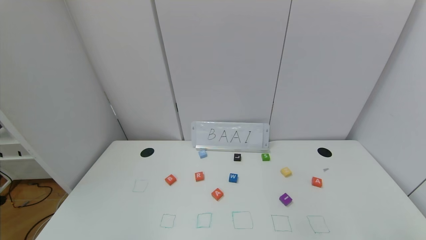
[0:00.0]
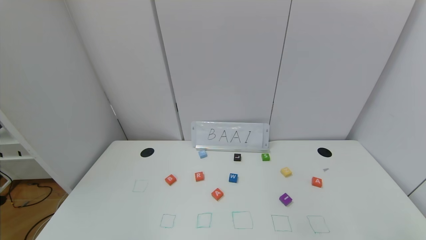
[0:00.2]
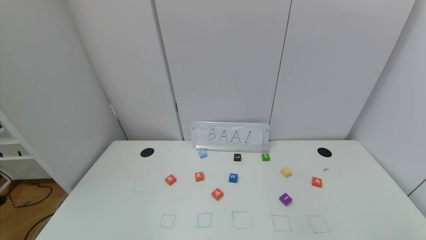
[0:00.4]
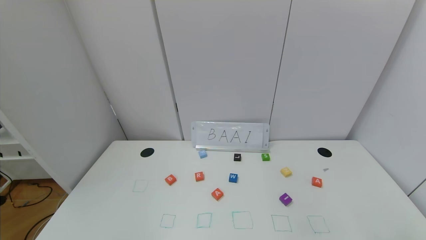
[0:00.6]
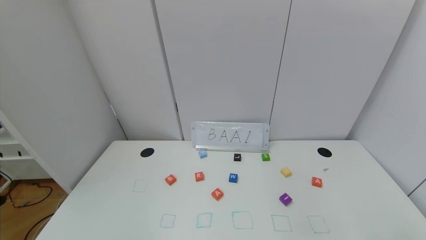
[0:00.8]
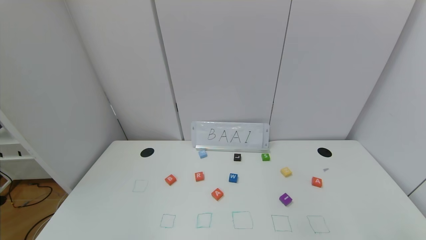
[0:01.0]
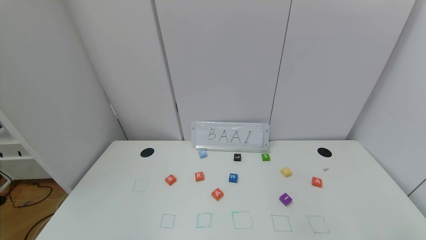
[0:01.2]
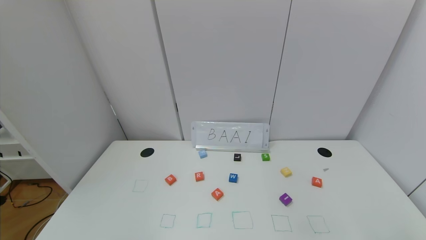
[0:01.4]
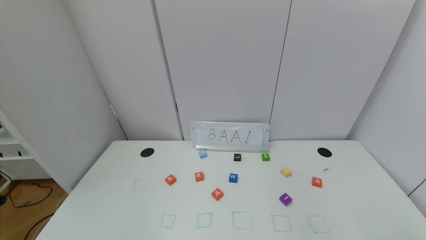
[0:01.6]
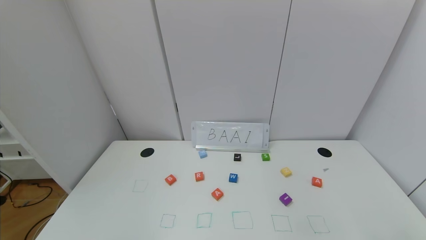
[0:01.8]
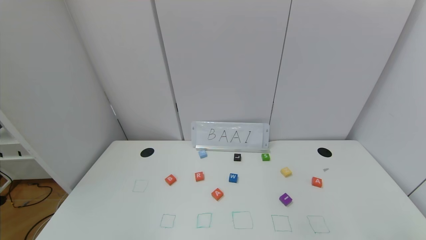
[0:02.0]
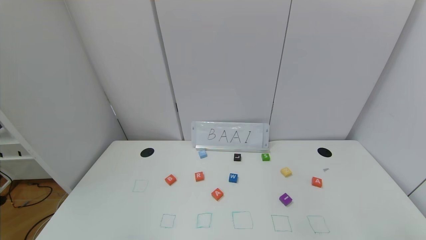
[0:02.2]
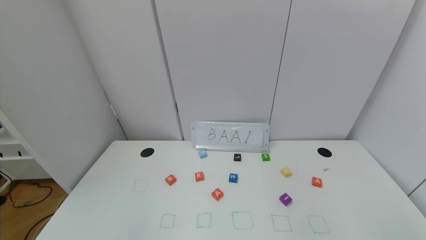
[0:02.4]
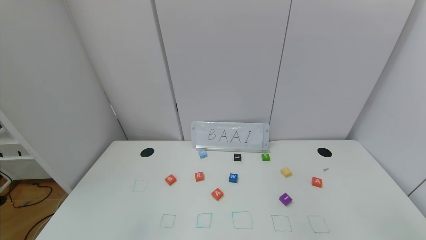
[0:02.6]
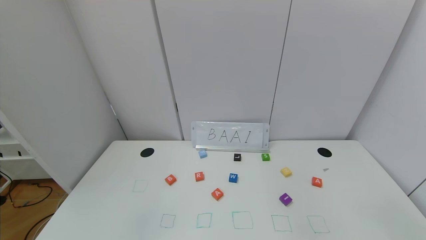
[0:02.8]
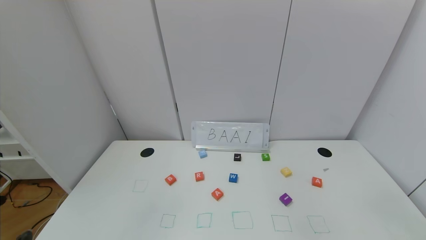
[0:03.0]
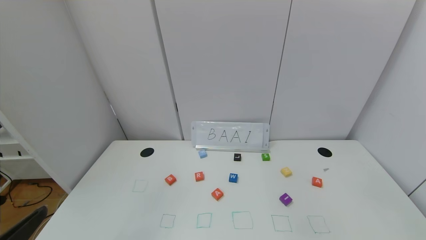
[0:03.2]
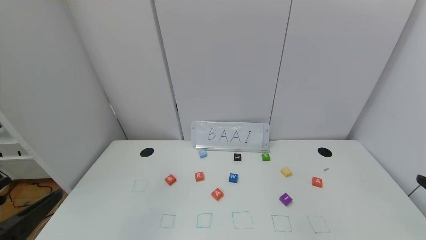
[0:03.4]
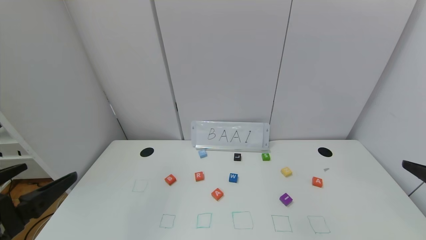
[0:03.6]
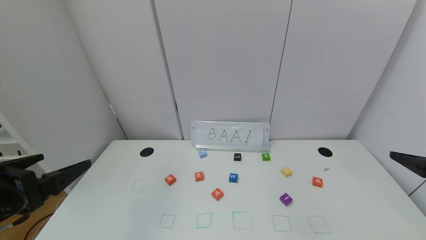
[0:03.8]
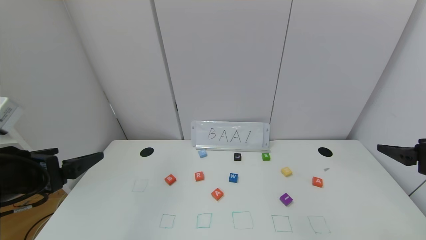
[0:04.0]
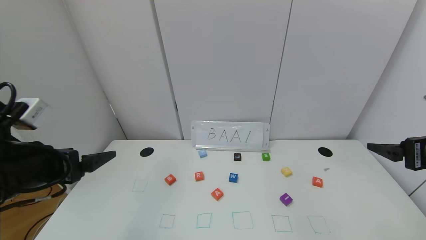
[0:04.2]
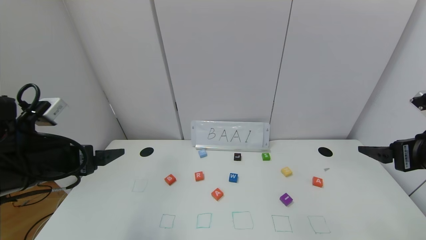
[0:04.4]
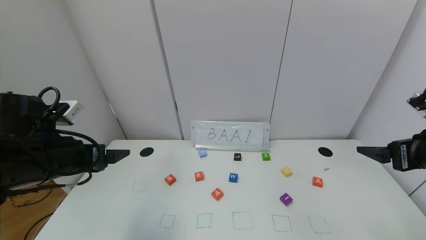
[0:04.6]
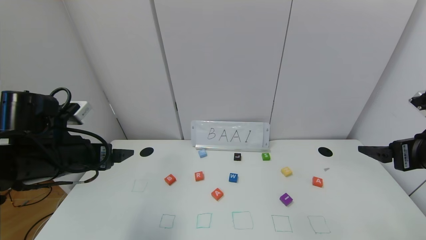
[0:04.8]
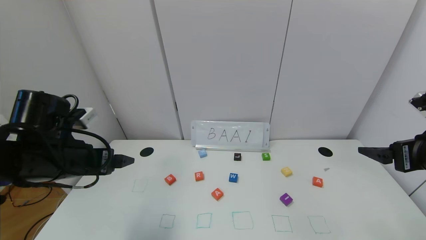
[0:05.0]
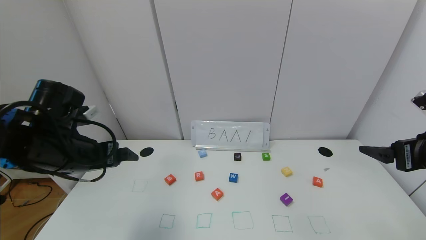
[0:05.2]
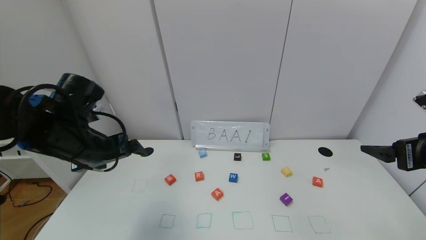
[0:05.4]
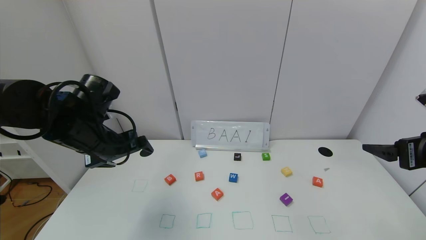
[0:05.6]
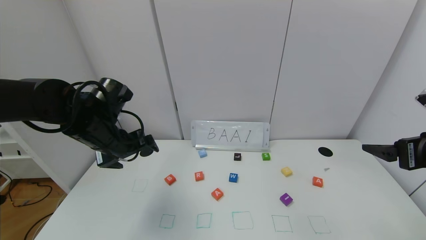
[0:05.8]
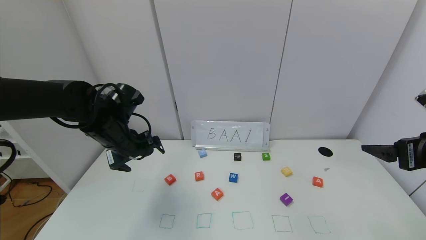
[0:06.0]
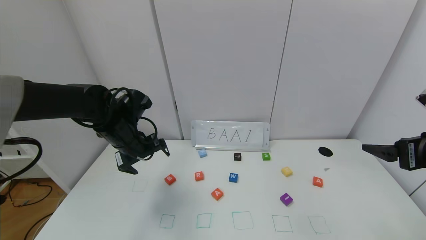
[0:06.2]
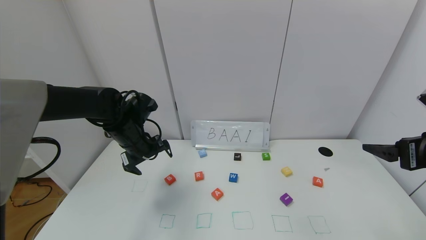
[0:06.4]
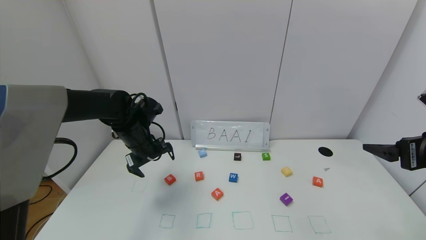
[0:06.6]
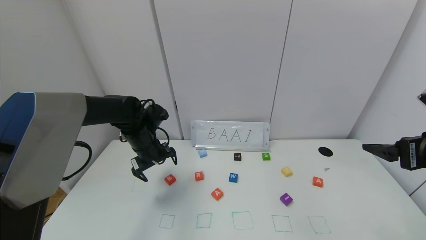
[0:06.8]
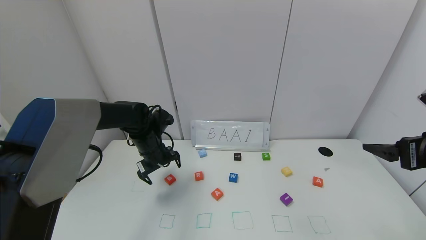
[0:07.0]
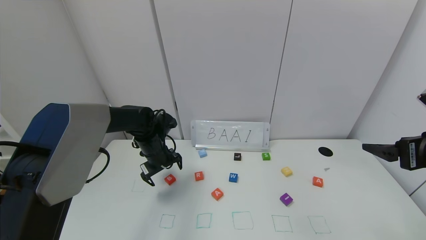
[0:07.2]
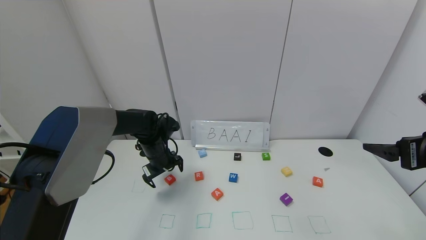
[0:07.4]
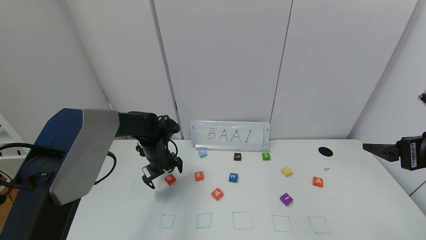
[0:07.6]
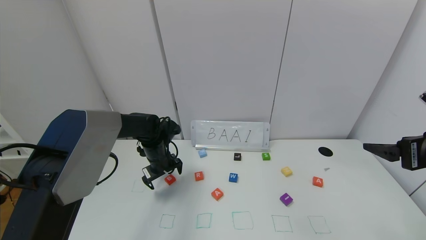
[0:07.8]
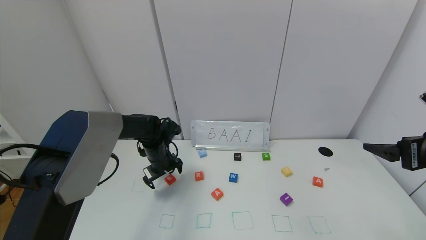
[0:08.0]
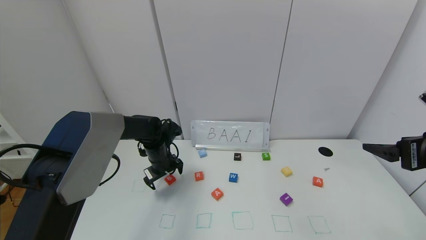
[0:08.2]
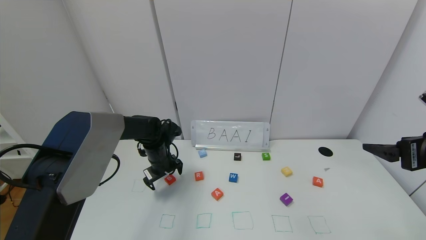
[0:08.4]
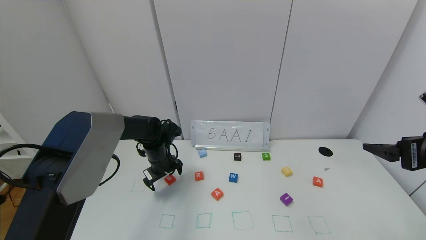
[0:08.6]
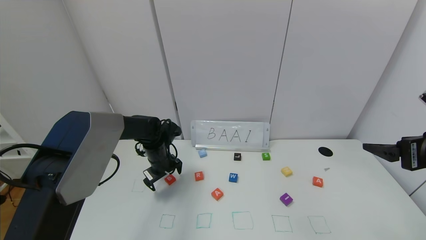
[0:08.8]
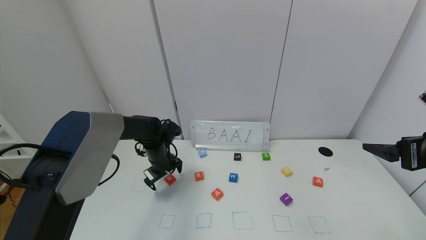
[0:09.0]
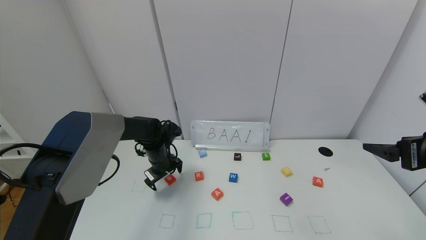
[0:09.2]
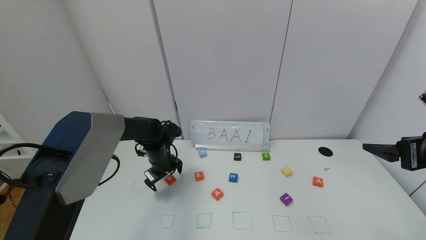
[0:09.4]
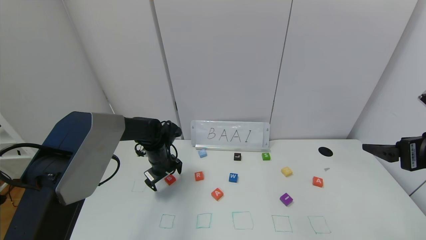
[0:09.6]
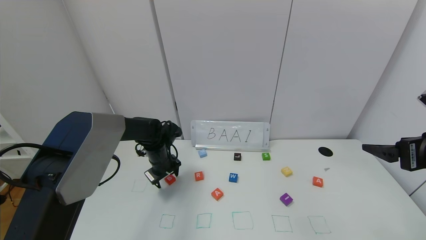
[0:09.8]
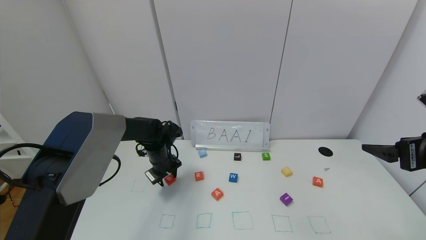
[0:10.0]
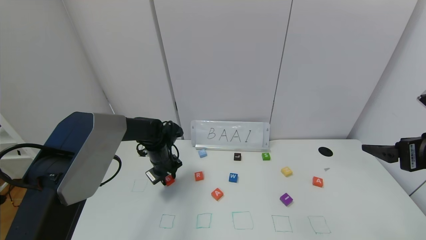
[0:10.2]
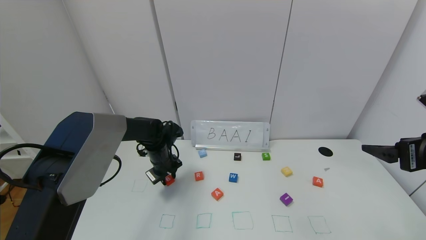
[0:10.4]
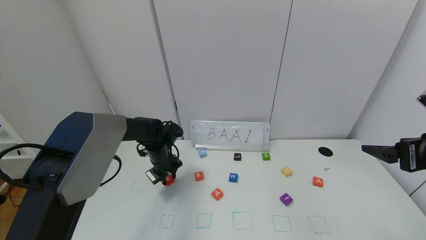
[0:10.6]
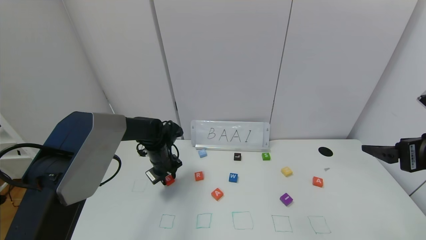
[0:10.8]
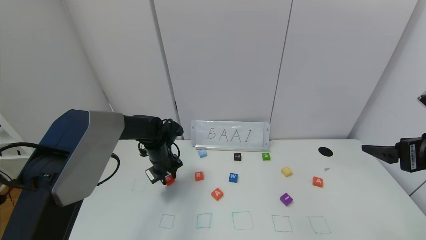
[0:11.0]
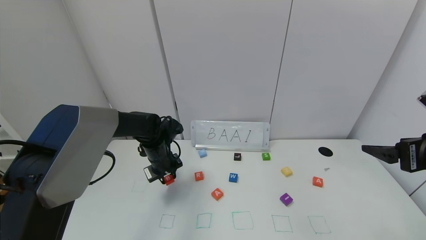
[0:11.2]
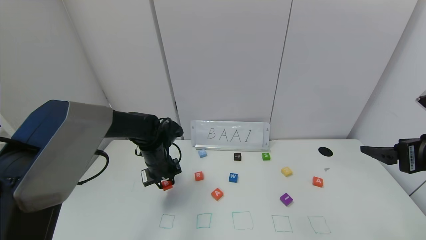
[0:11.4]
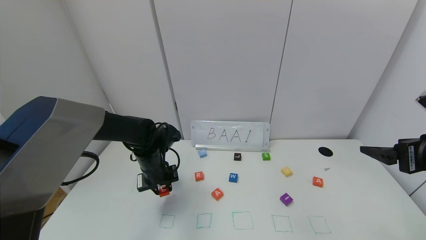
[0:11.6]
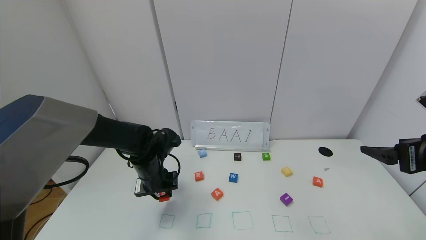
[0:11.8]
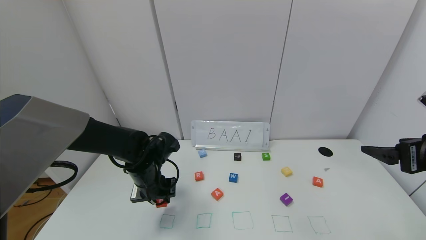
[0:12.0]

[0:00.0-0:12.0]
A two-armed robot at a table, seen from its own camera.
Task of the whole recording: use the gripper to find blocks with the letters b, a, a, and i on the table and arrange them into BAAI, then find r and N and turn the arranged baai into brian.
0:00.0 to 0:01.6: The two grippers keep their place.
0:03.0 to 0:04.4: Both grippers travel together forward, some 20 cm.
0:04.4 to 0:06.0: The left gripper shifts some 15 cm forward.
0:06.0 to 0:07.6: The left gripper is displaced downward and forward by some 15 cm.
0:07.6 to 0:09.0: The grippers make only small movements.
0:09.0 to 0:10.4: The left gripper closes.
0:10.4 to 0:12.0: The left gripper goes some 10 cm backward.

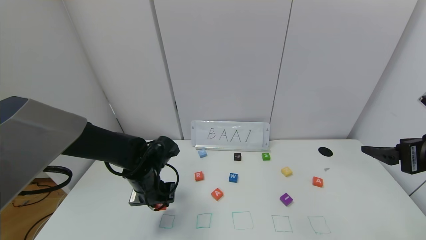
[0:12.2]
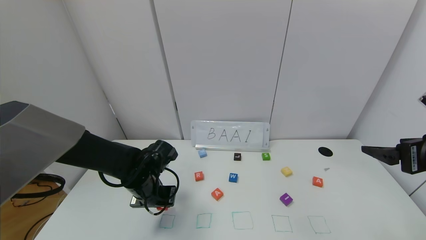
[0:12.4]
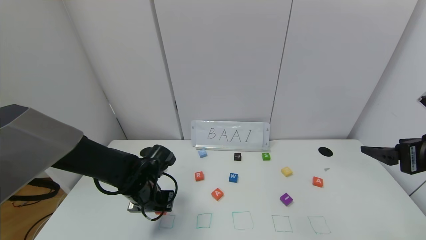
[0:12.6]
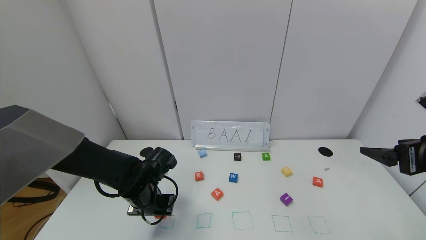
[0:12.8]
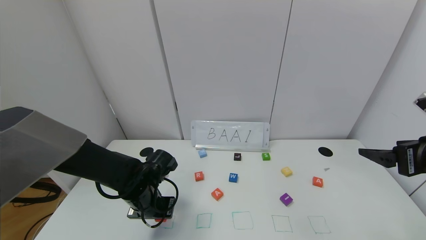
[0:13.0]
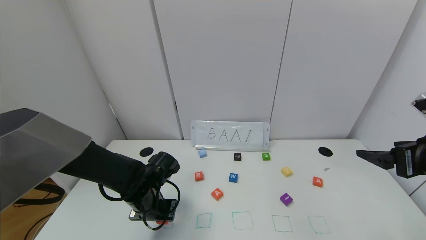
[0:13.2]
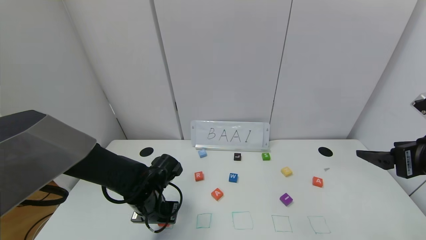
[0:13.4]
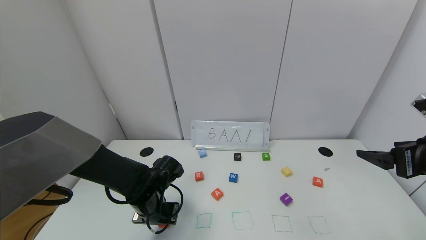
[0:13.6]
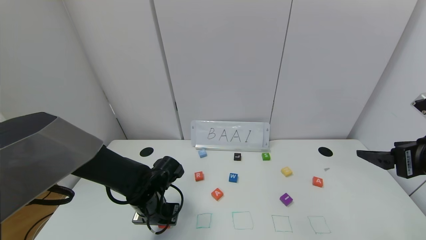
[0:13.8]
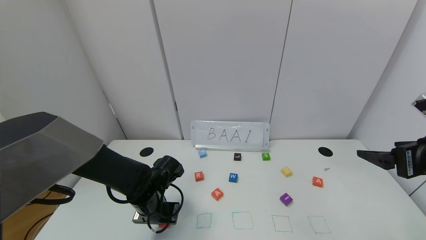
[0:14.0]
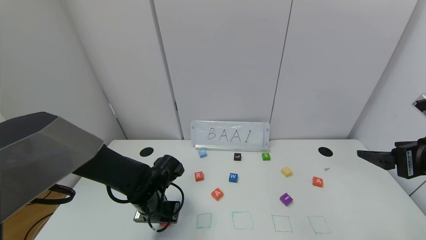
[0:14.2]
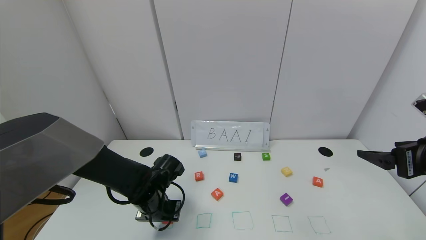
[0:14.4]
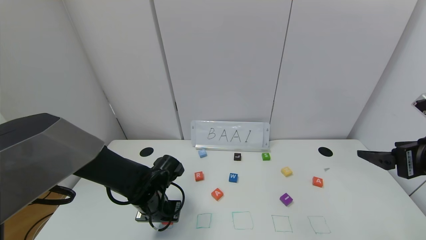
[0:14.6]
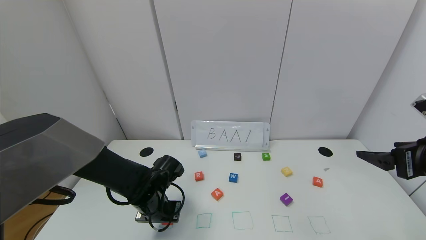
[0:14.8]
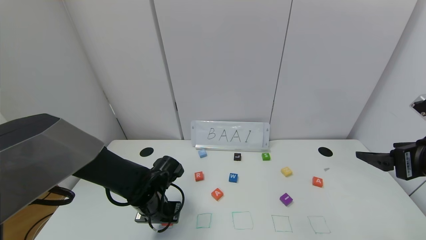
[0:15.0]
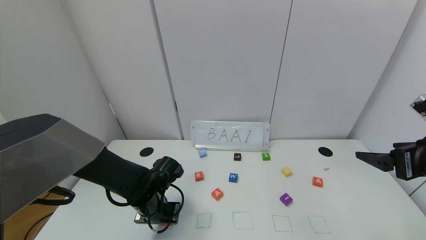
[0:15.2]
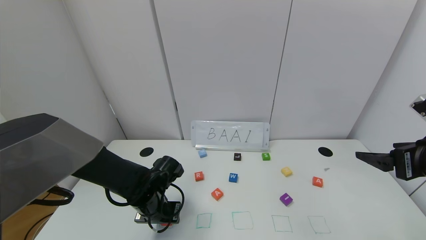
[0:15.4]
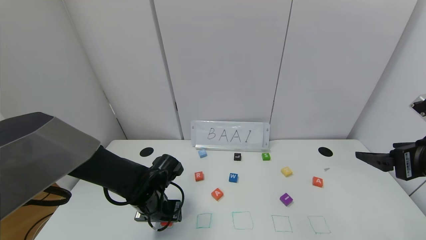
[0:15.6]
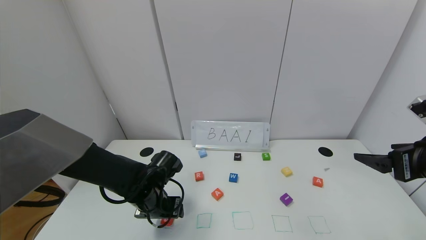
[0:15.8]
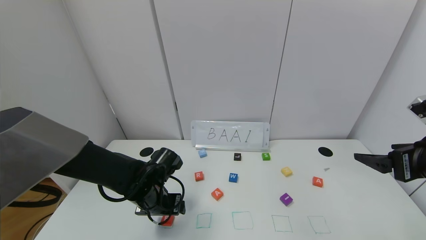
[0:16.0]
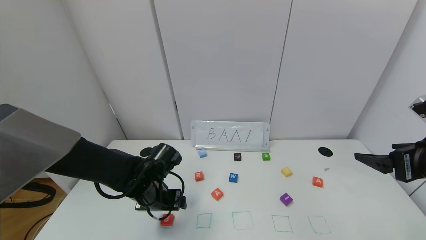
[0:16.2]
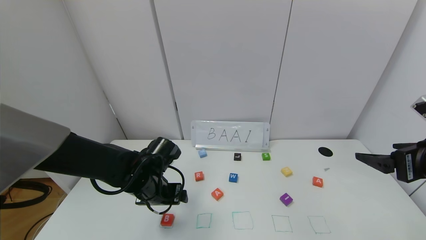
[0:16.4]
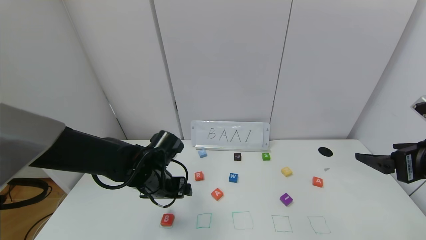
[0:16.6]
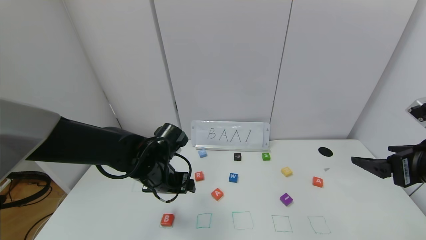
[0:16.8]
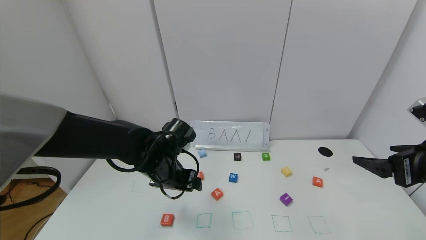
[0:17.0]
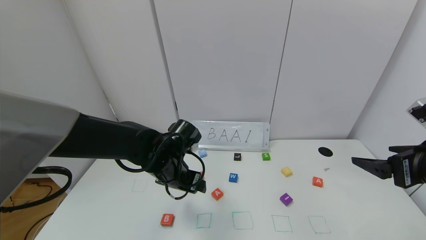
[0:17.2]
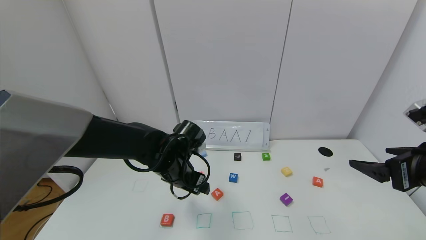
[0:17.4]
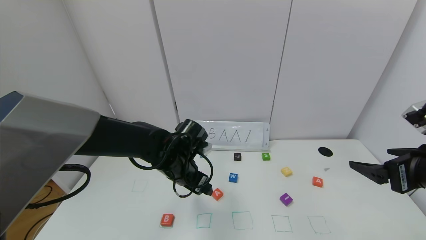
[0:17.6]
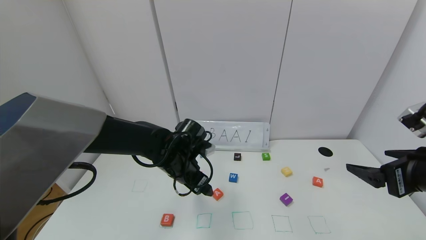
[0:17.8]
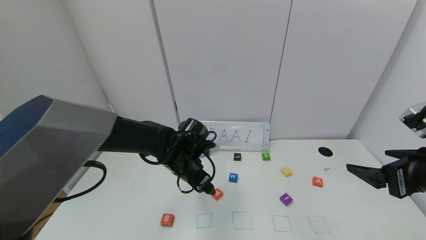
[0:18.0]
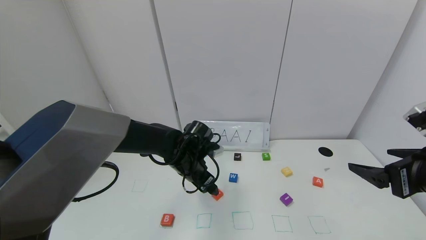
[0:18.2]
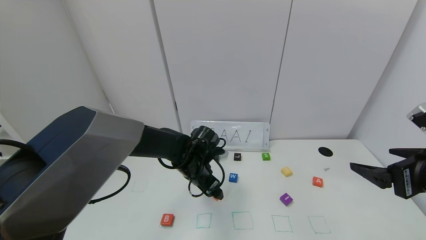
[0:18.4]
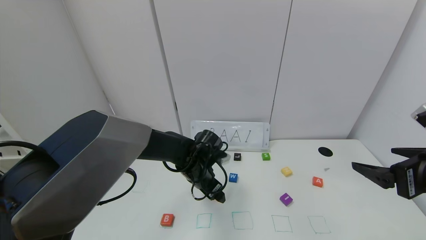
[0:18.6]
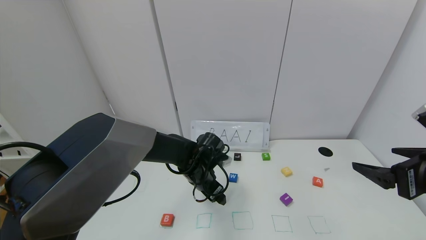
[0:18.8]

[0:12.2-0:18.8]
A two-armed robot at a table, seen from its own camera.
Task of the whole recording: use the gripper to find blocks with the letters b, a, a, and i on the table and arrange them into BAAI, then find r and N and turn the arranged baai into brian.
Step, 0:12.2 to 0:15.6: Place the block B in the first location.
0:12.2 to 0:13.8: The grippers make only small movements.
0:13.8 to 0:15.4: The left gripper opens its fingers.
0:15.4 to 0:17.2: The left gripper shifts some 10 cm upward and to the right, and opens its fingers.
0:17.2 to 0:18.8: The left gripper shifts approximately 5 cm downward.
